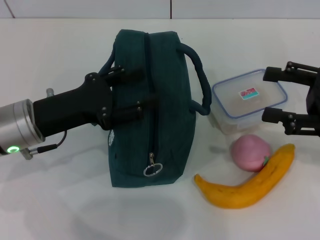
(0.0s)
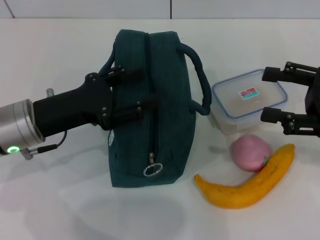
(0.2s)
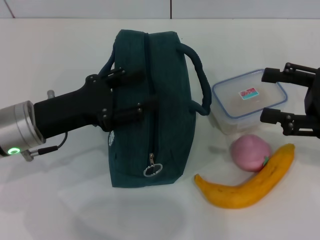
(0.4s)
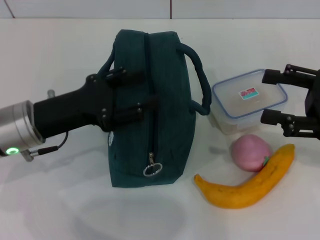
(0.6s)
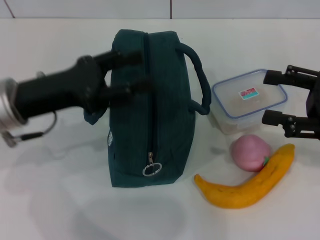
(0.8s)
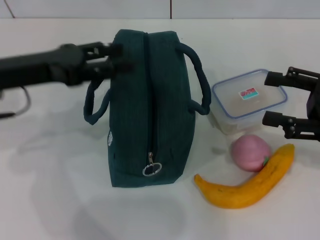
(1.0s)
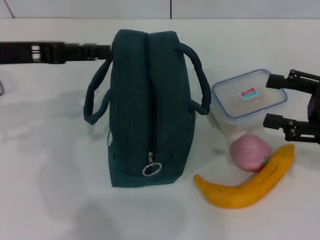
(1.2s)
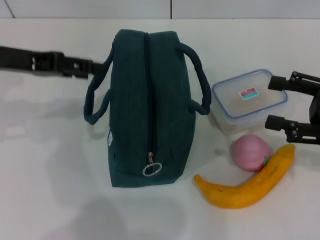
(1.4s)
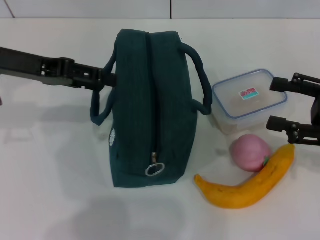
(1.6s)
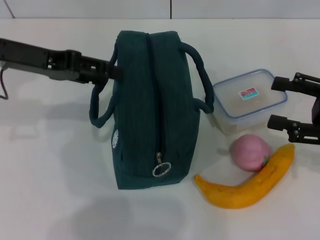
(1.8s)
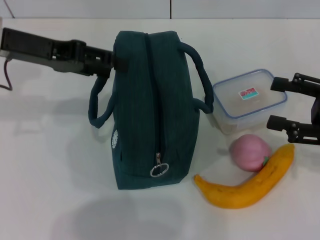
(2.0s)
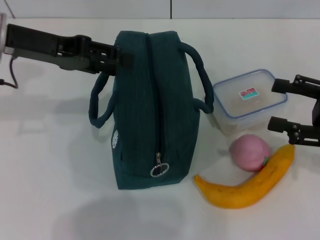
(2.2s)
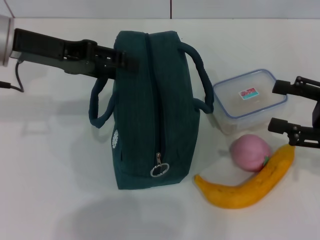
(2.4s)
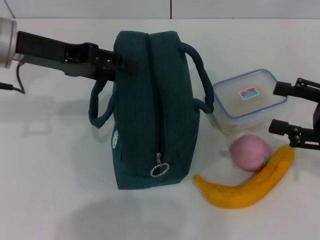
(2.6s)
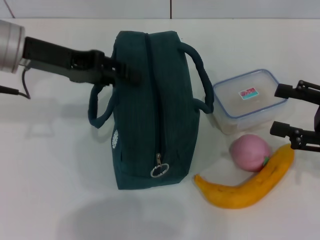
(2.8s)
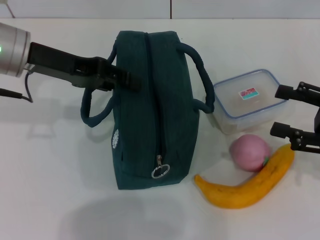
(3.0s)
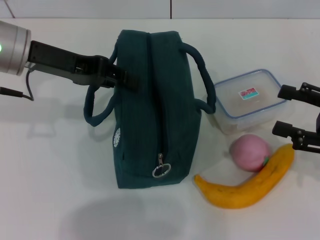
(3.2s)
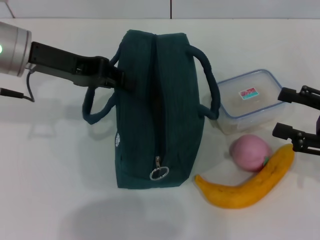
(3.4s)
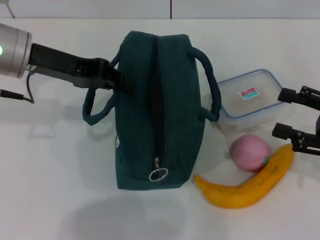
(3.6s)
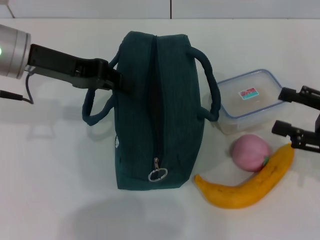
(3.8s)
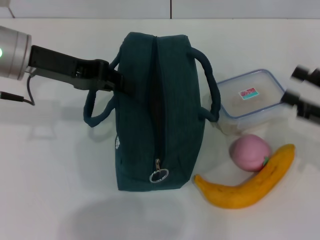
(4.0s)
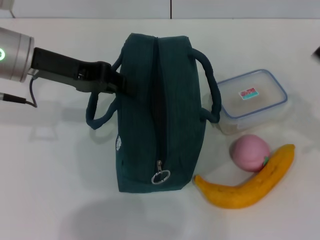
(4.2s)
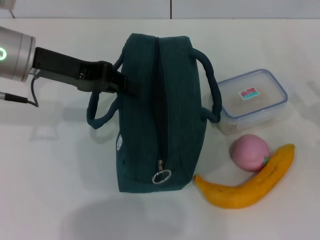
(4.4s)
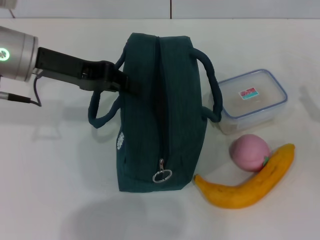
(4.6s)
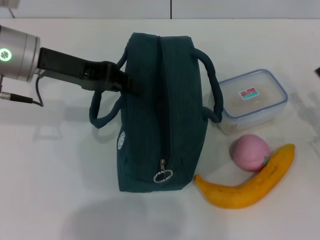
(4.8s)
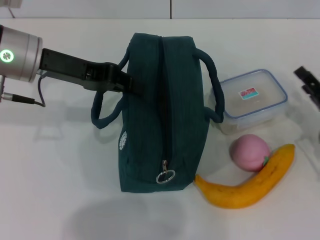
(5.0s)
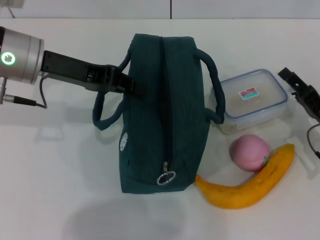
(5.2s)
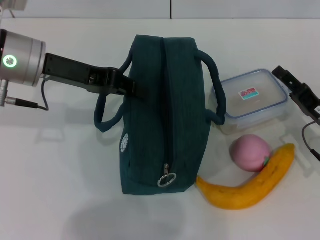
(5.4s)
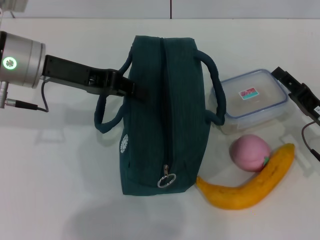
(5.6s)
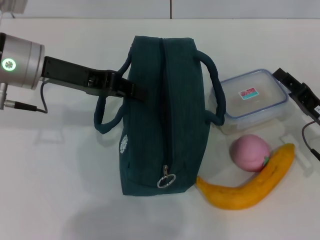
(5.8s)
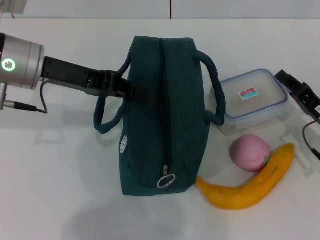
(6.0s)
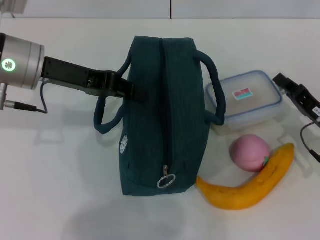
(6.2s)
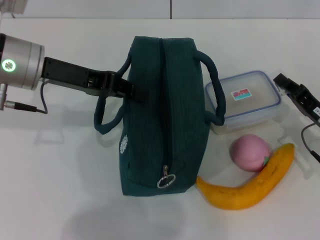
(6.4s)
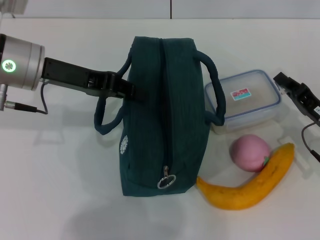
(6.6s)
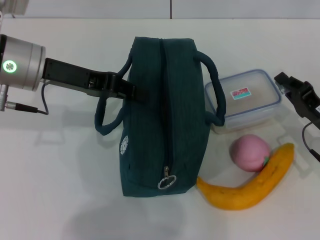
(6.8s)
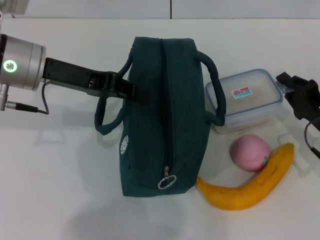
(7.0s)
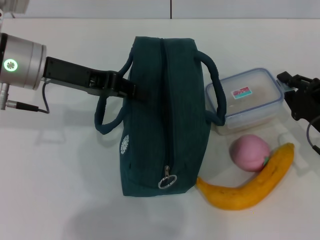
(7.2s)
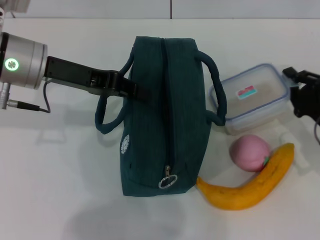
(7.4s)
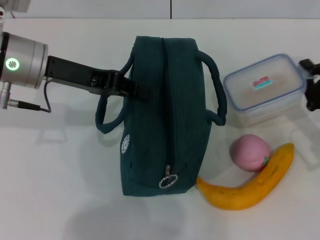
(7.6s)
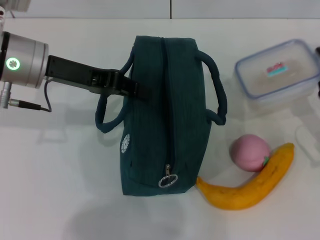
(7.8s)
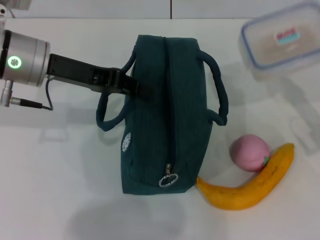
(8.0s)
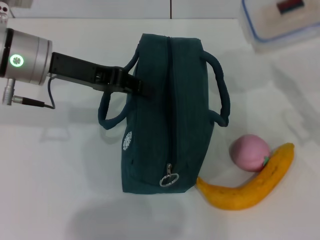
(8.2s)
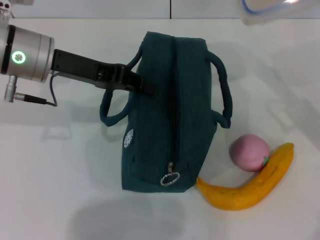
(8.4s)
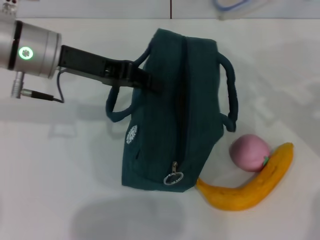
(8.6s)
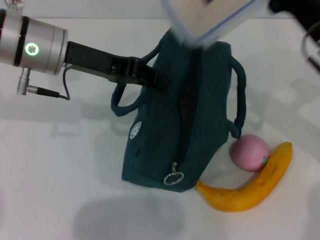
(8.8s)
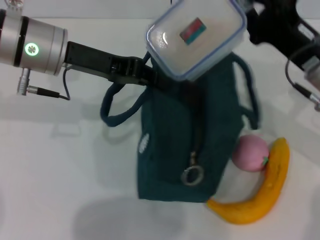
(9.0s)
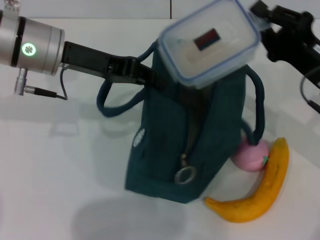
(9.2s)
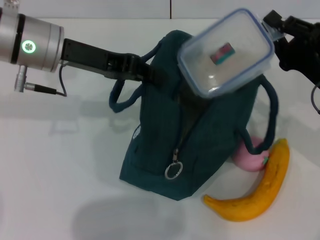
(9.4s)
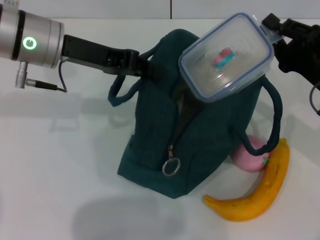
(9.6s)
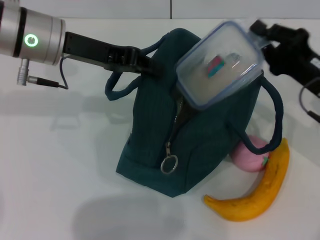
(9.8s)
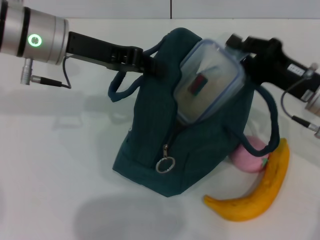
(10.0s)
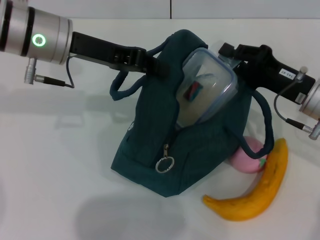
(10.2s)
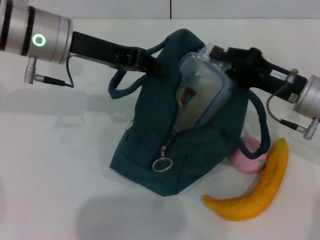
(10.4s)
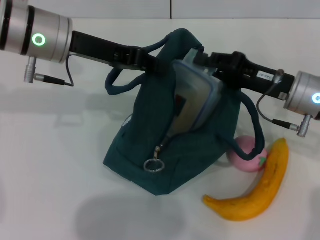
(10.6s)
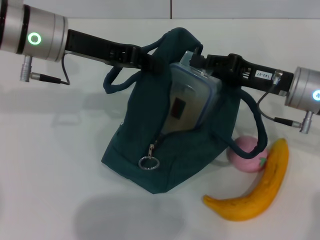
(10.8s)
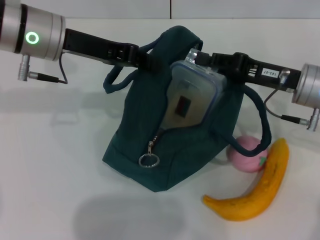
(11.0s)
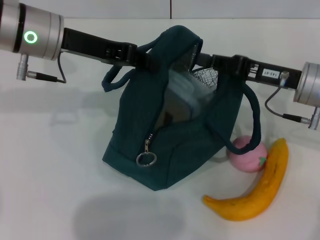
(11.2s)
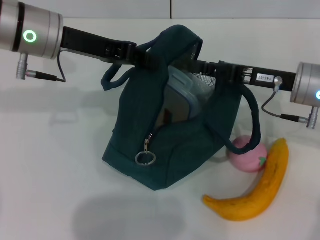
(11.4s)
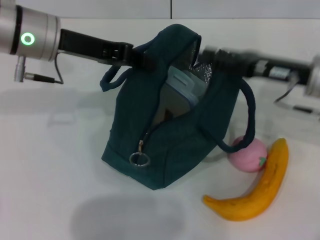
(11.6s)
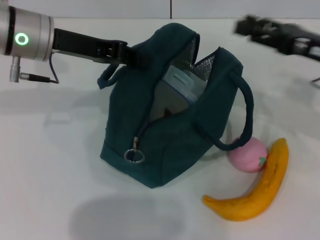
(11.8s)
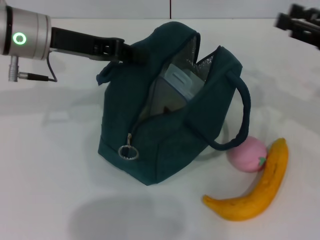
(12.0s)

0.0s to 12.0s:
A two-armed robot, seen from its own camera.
Step, 0.0s to 3.8s: Hold the lunch bag with your left hand.
Step, 4.0s to 7.0s: Pick up the lunch box with your right hand.
Step, 7.2s to 11.0s: Place the lunch box into the lunch bag with your right hand.
0.0s to 1.6s: The left gripper travels upward and forward by approximately 10 cm.
1.6s to 3.0s: The grippers make only small movements.
3.0s to 4.4s: The left gripper closes, while the right gripper goes roughly 5 cm downward.
4.4s to 6.0s: The right gripper shifts roughly 5 cm to the left.
7.6s to 9.0s: The right gripper goes about 15 cm upward, to the left and forward.
10.4s to 12.0s: The right gripper moves to the right and upward, approximately 10 cm, and opens.

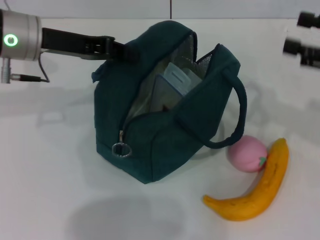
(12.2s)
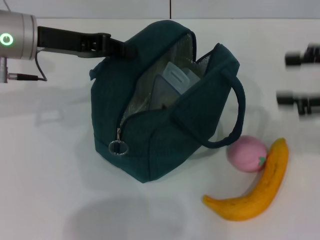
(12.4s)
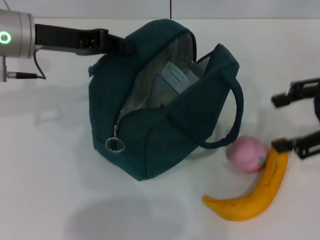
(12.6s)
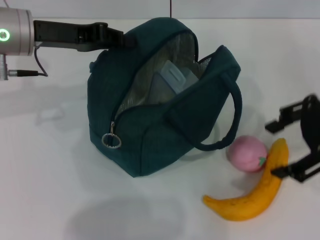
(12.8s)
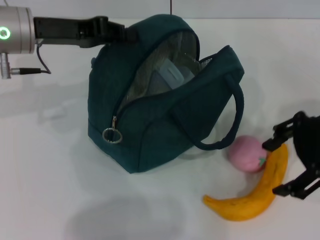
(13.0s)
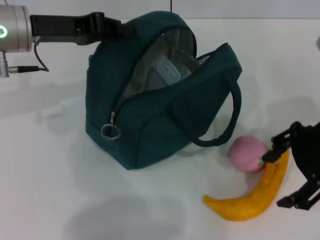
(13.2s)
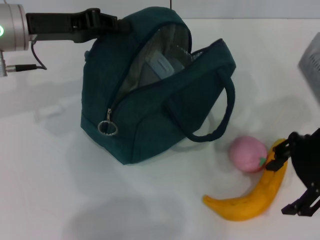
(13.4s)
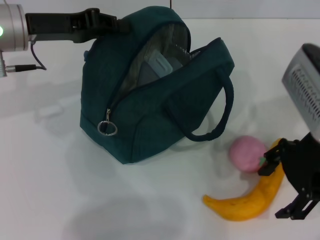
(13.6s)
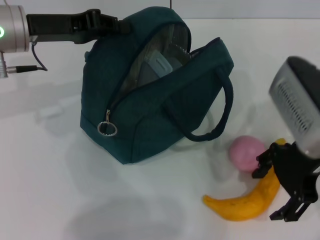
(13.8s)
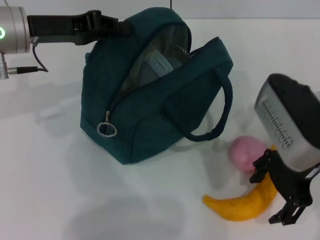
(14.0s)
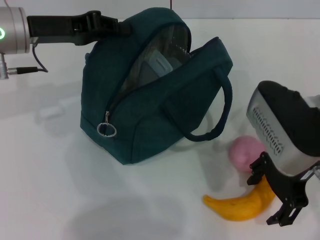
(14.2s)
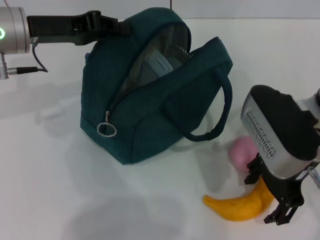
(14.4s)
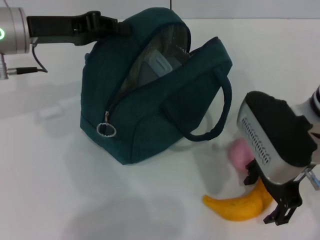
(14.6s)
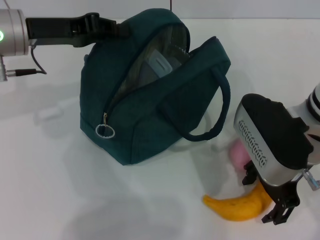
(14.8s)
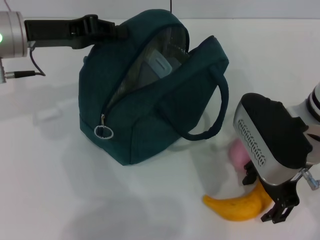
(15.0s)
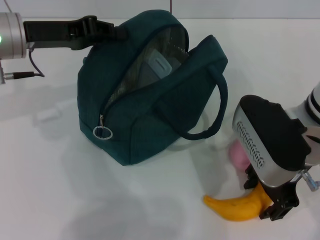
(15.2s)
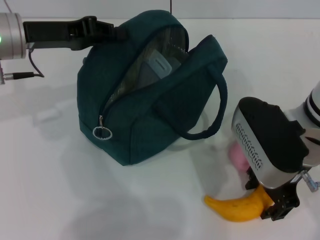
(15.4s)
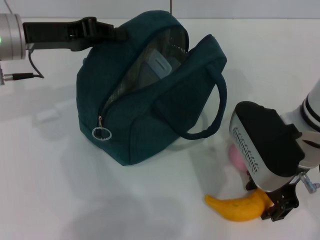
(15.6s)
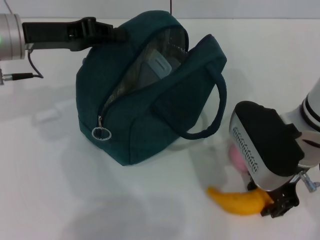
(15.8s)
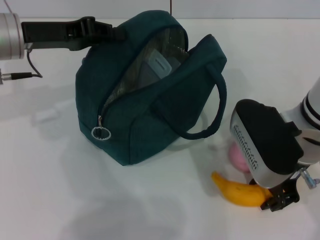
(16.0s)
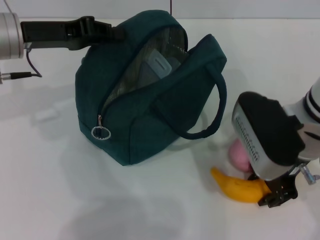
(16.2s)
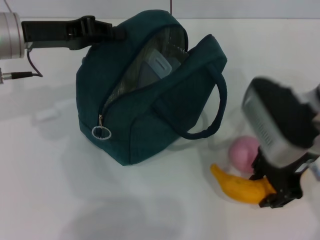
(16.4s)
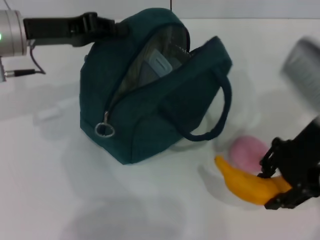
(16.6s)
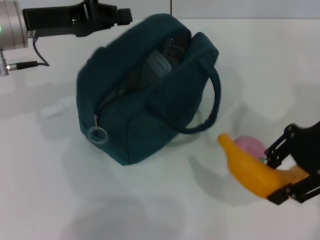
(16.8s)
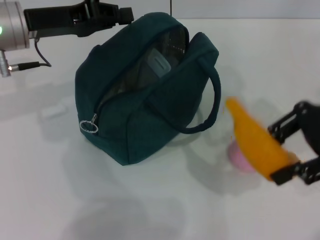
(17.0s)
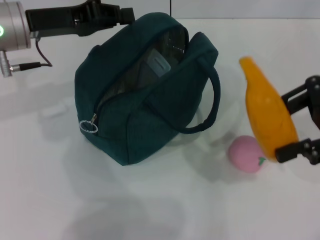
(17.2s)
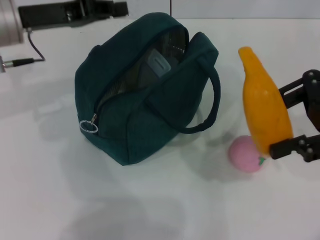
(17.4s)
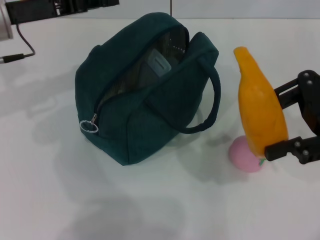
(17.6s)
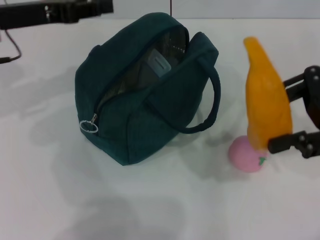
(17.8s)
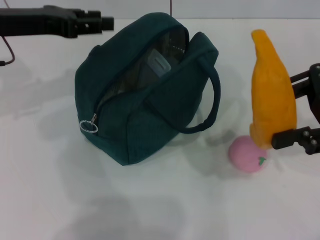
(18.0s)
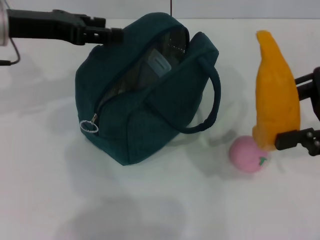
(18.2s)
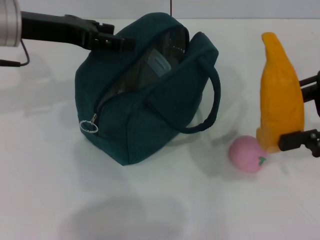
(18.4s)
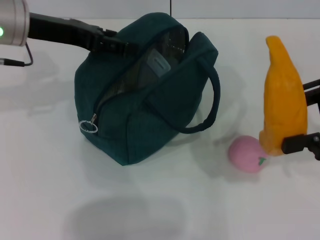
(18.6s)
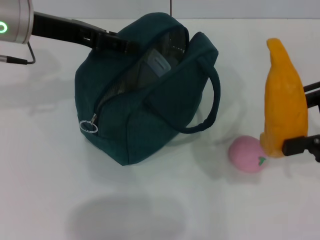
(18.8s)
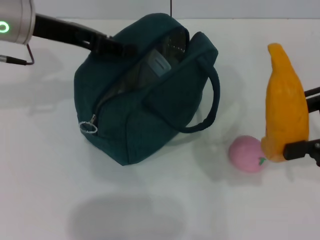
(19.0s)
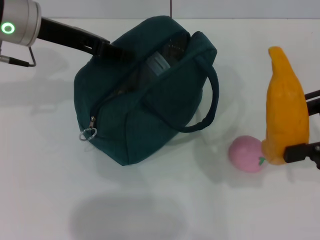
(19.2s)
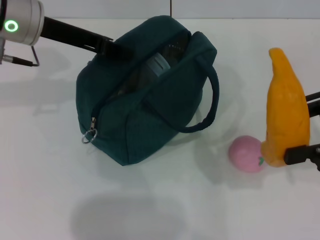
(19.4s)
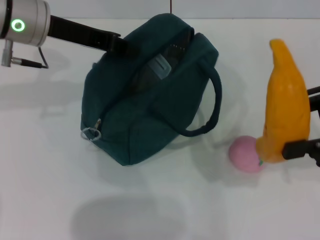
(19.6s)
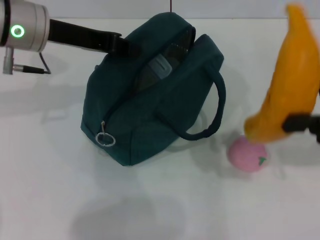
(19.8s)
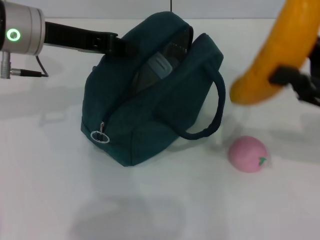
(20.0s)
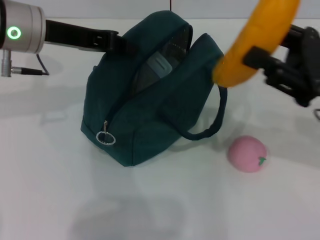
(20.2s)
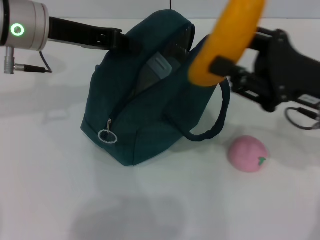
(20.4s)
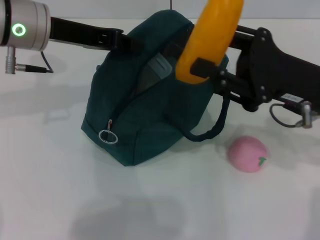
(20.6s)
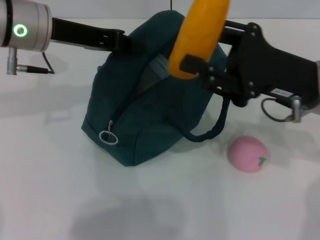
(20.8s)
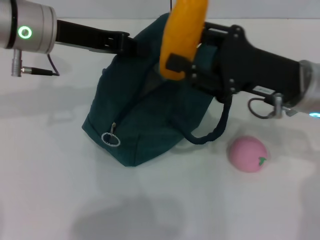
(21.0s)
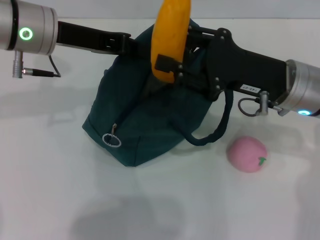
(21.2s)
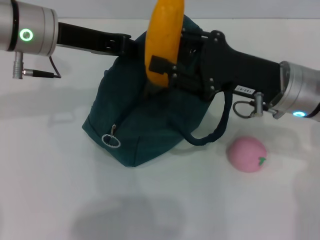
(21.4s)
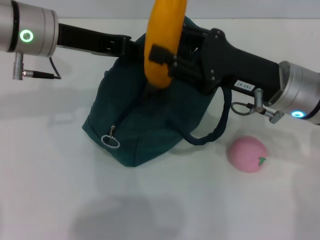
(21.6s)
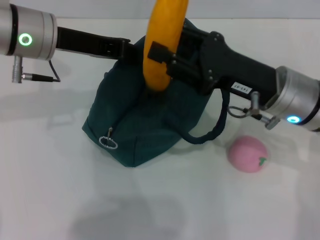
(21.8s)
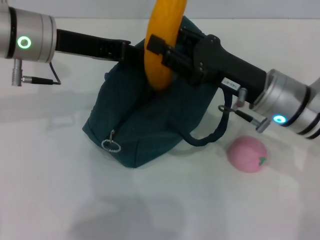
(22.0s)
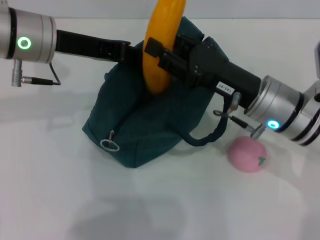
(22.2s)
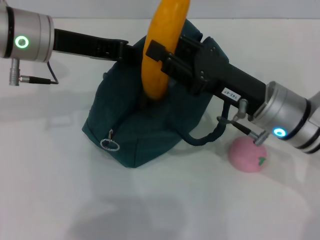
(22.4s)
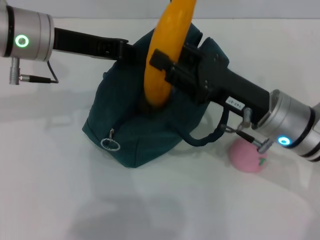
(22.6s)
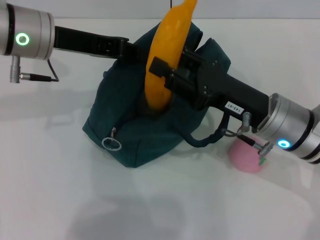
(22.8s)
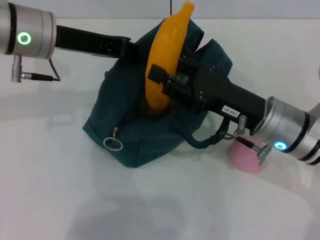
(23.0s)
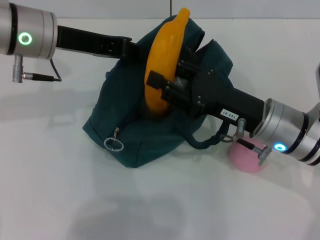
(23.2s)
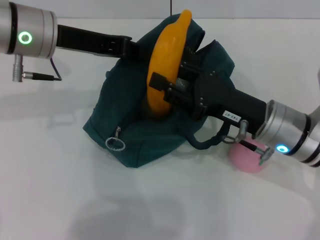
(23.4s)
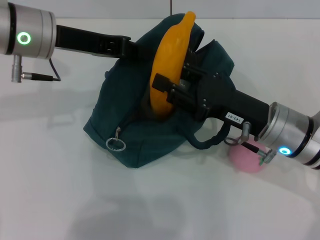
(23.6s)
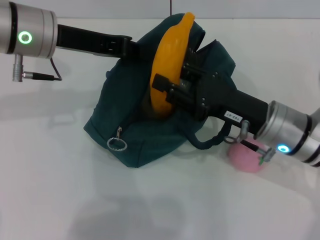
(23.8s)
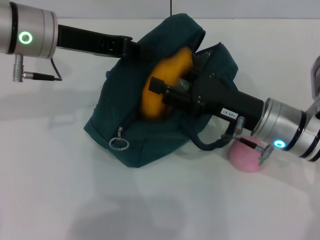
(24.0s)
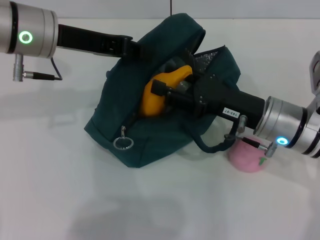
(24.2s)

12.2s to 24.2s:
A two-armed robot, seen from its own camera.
Step, 12.2s to 15.8s: Take the banana with your right hand.
12.2s to 13.8s: The right gripper moves to the left, some 15 cm.
13.8s to 15.2s: The grippers make only small movements.
15.2s to 16.6s: The right gripper ends up approximately 5 cm from where it was, and closes its fingers.
16.6s to 18.2s: The left gripper opens up. The right gripper travels to the right by approximately 10 cm.
18.2s to 19.8s: The left gripper closes its fingers.
19.8s to 21.2s: The right gripper travels to the left and downward by some 15 cm.
21.2s to 22.6s: The right gripper moves about 5 cm.
22.6s to 24.2s: The grippers move only a little.
